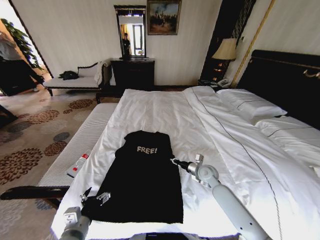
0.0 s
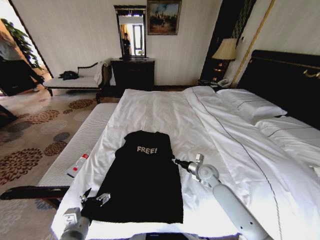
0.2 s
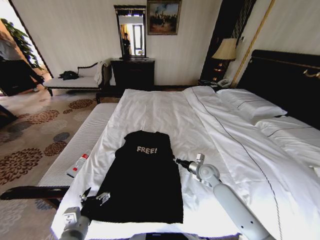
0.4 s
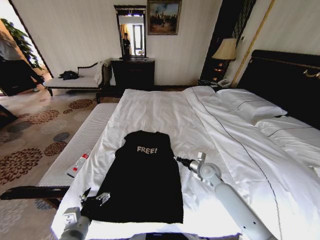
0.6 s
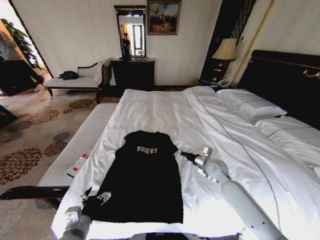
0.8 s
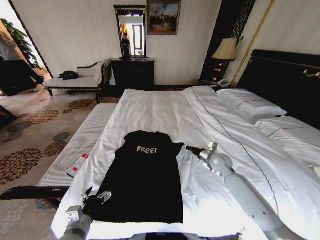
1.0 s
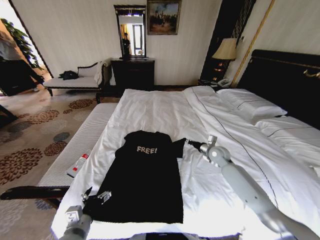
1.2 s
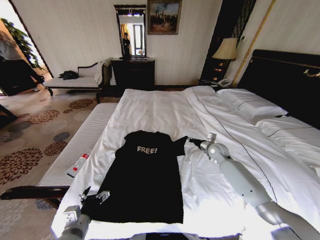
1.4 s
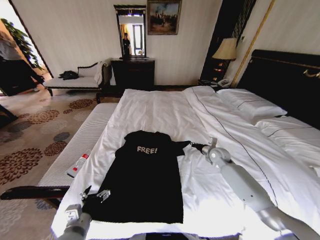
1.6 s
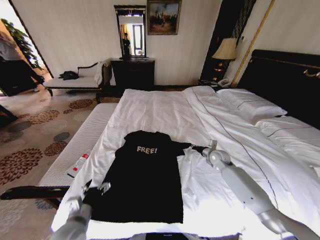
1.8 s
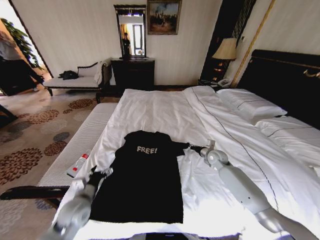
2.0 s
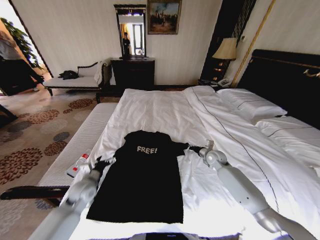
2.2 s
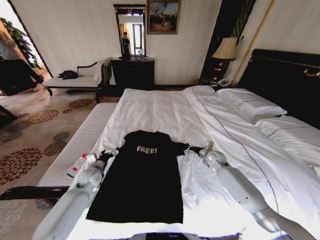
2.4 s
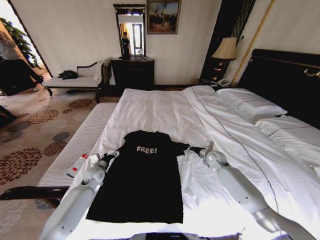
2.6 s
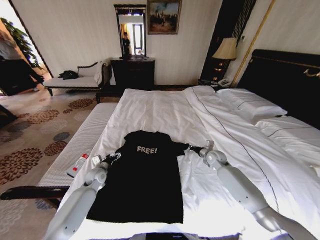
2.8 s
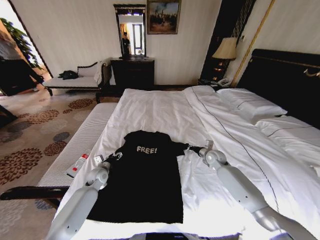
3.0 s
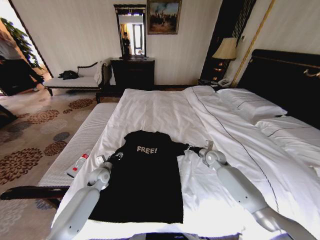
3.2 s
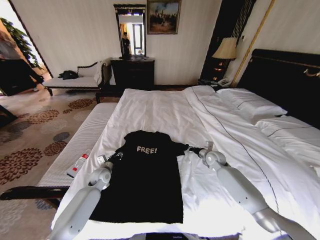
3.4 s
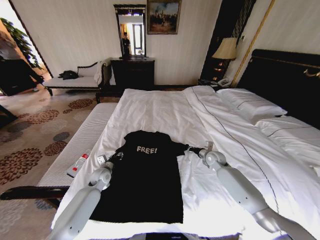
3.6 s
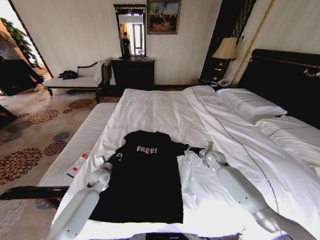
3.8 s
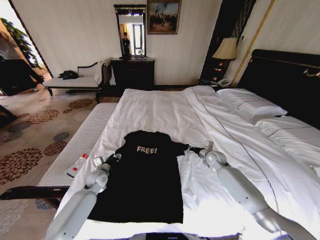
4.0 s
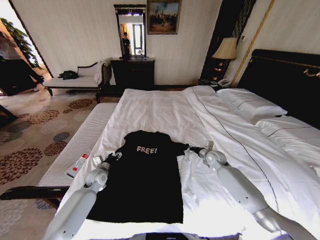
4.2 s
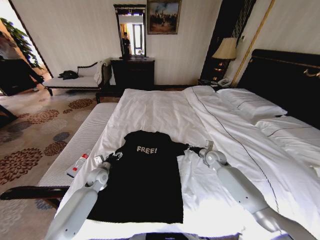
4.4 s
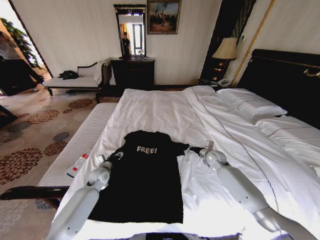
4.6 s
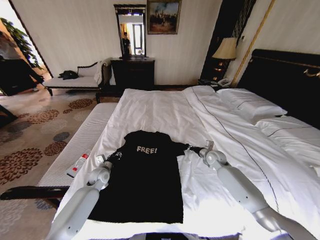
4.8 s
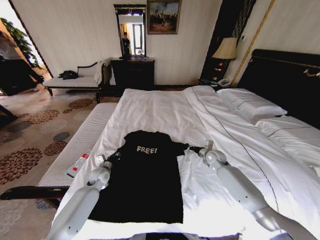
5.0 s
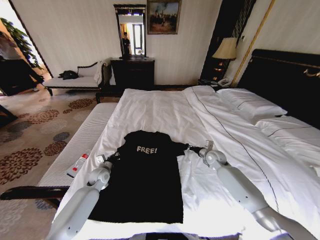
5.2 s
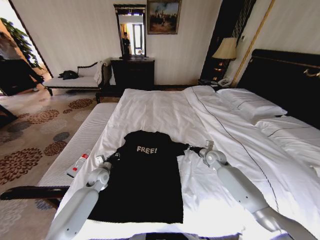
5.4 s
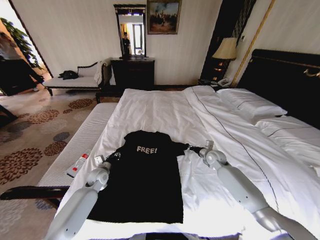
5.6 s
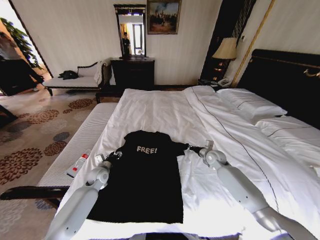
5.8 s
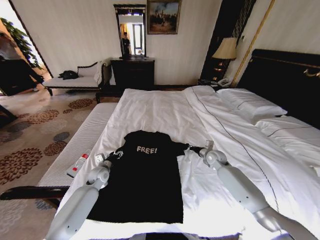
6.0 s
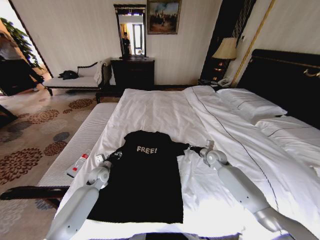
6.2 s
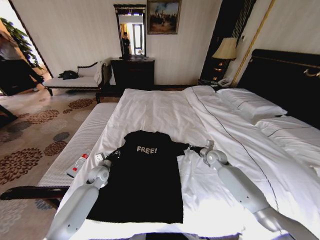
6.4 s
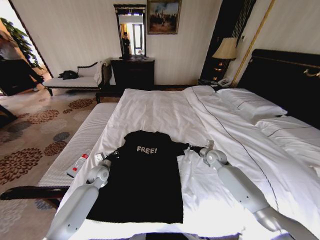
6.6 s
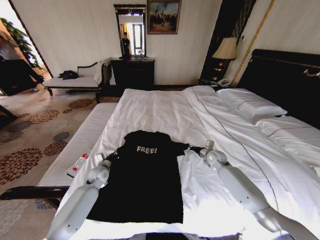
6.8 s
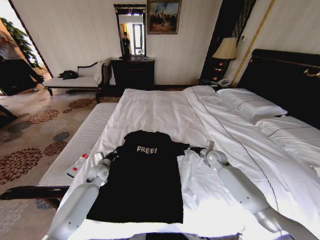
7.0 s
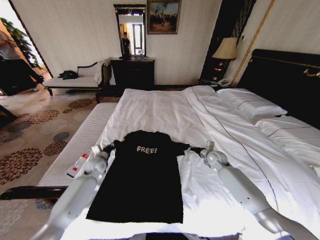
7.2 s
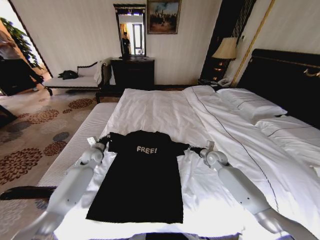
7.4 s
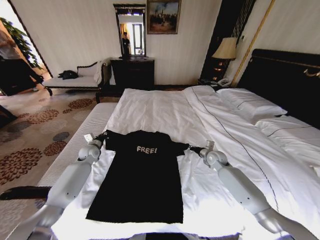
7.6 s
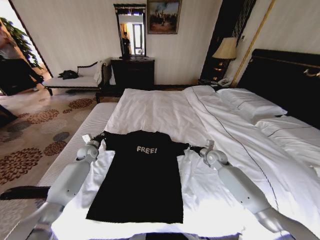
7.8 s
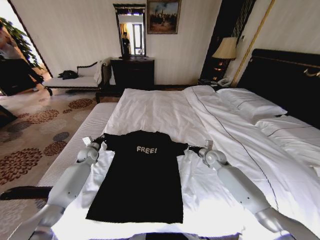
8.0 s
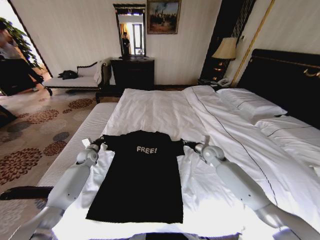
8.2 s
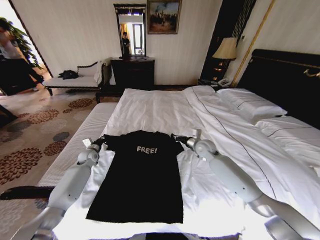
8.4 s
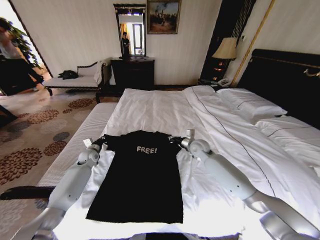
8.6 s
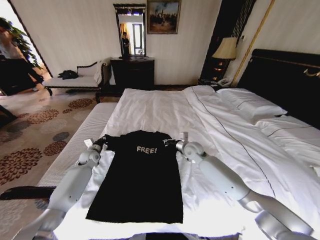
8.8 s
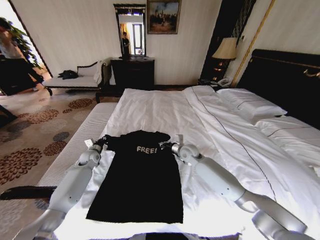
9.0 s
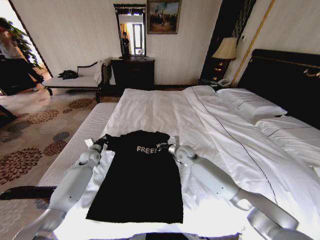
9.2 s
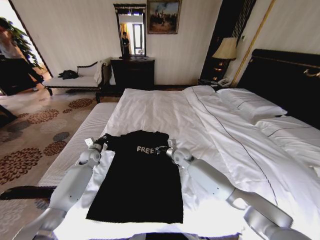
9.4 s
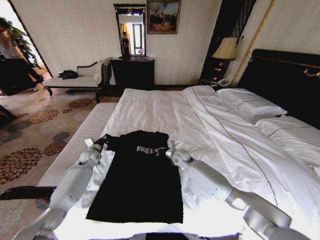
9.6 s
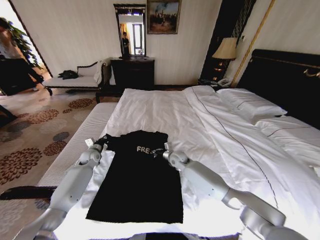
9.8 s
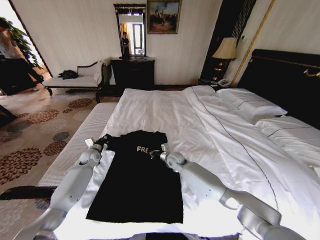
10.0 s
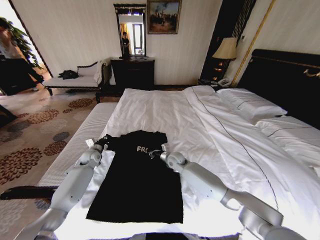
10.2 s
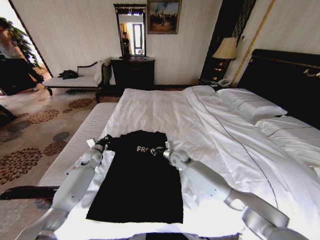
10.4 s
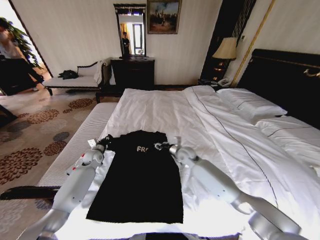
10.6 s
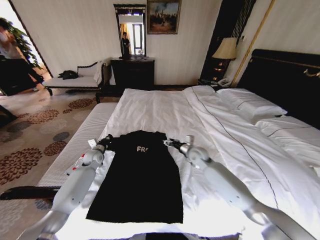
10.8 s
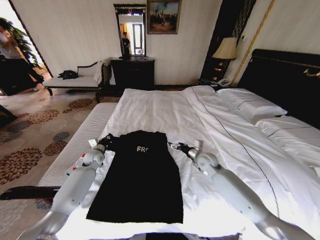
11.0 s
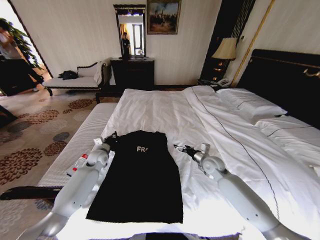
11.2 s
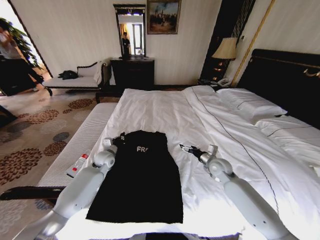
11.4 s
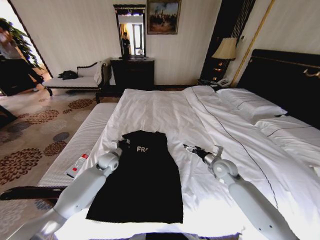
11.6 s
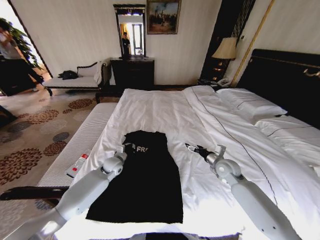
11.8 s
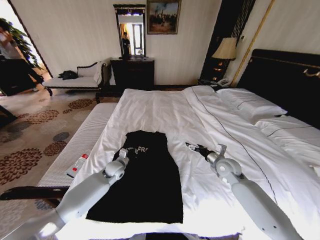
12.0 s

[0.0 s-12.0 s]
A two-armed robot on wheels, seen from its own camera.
Task of the whole recording: Fold the clothes on the bed.
0.0 to 1.6 s: The right gripper goes some 10 cm forward and to the right.
1.6 to 3.0 s: The left gripper moves forward, about 25 cm.
4.4 to 6.0 s: The left gripper closes, then opens again.
6.0 to 7.6 s: The left gripper goes some 15 cm forward, to the left and upward, and closes its fingers.
7.6 to 9.0 s: The right gripper goes roughly 15 cm to the left.
9.0 to 10.4 s: The right gripper shifts by some 5 cm.
10.4 to 12.0 s: Both grippers move to the right and backward, some 20 cm. The right gripper opens.

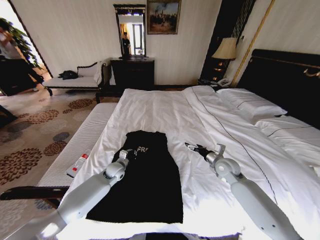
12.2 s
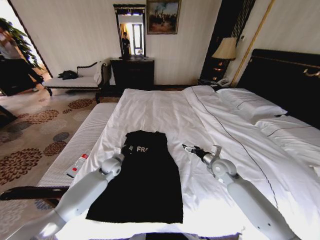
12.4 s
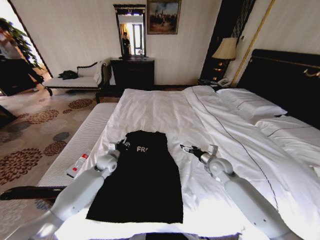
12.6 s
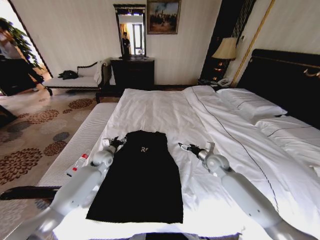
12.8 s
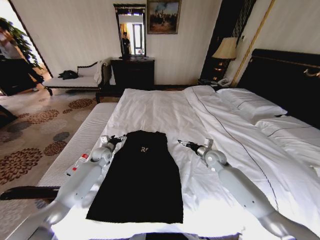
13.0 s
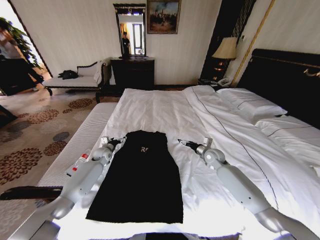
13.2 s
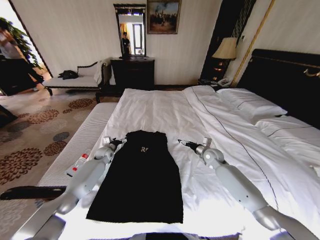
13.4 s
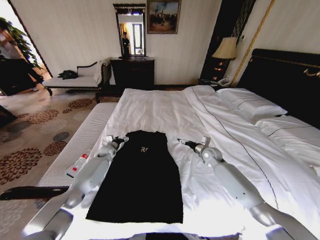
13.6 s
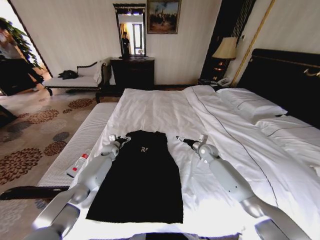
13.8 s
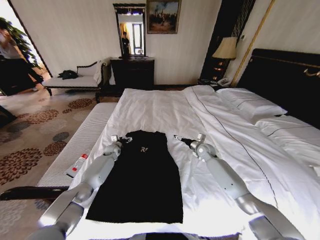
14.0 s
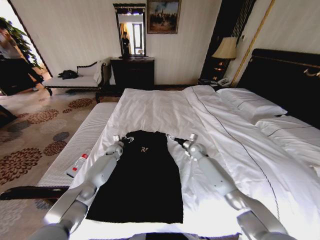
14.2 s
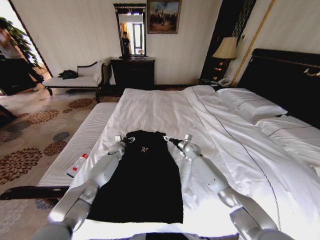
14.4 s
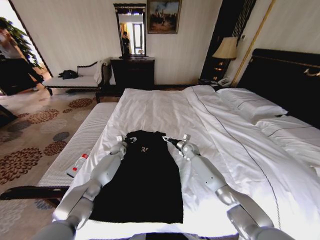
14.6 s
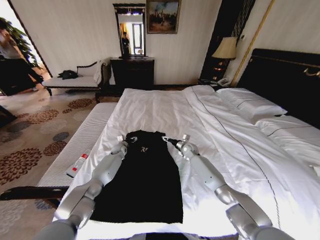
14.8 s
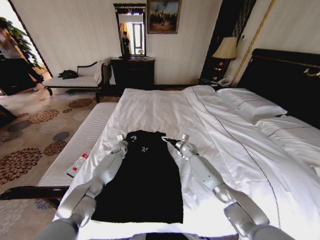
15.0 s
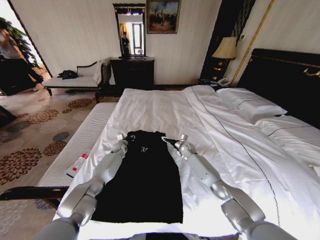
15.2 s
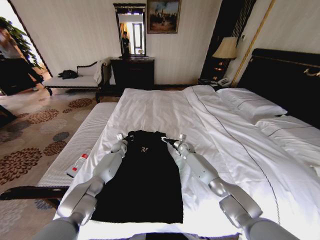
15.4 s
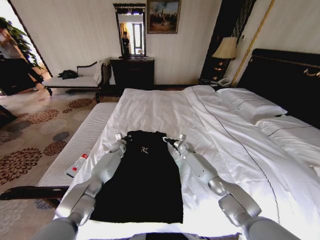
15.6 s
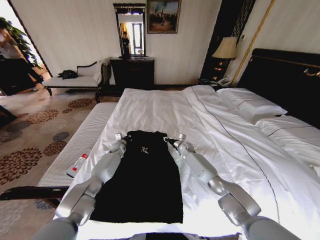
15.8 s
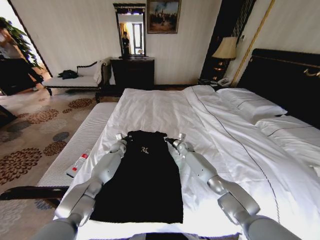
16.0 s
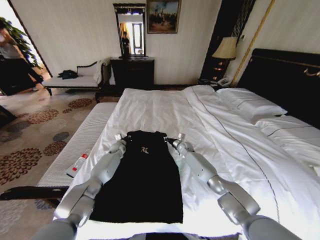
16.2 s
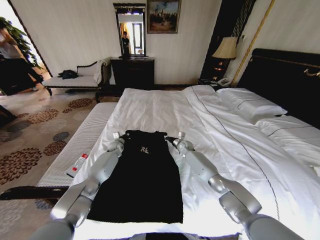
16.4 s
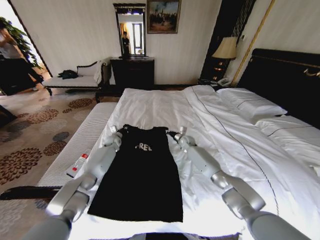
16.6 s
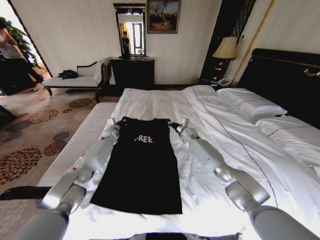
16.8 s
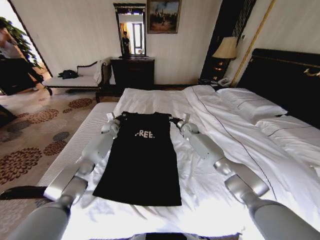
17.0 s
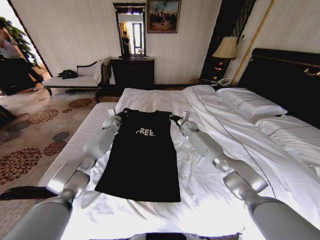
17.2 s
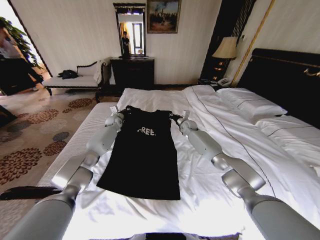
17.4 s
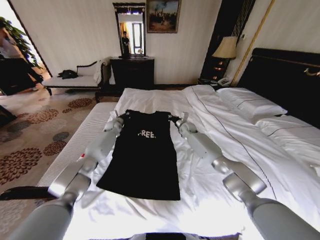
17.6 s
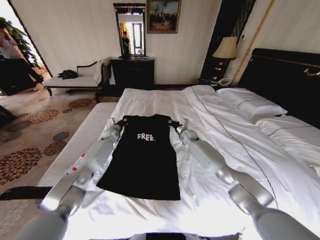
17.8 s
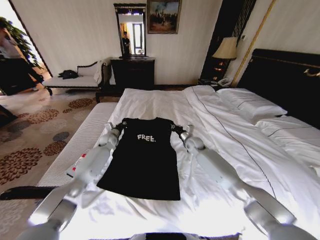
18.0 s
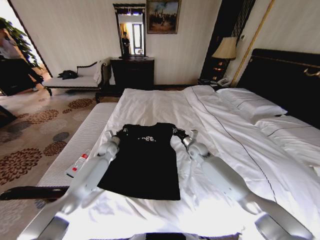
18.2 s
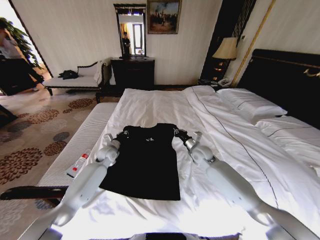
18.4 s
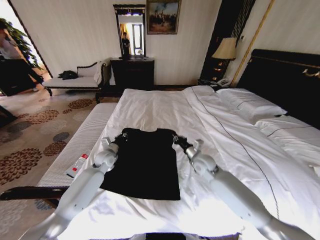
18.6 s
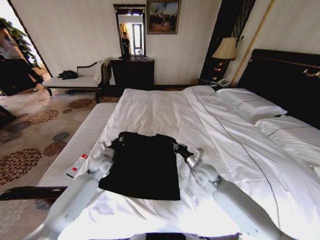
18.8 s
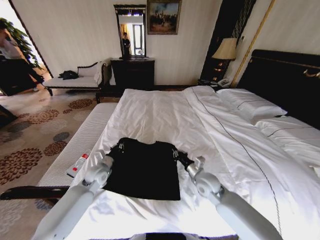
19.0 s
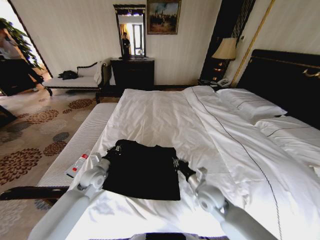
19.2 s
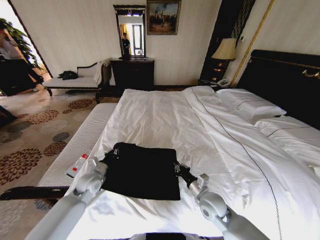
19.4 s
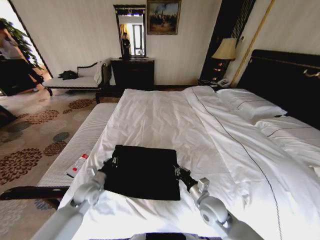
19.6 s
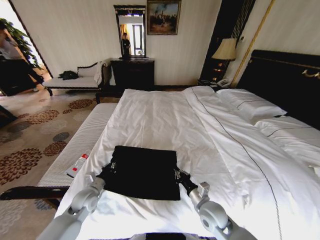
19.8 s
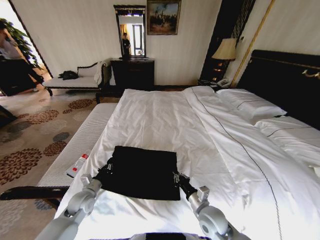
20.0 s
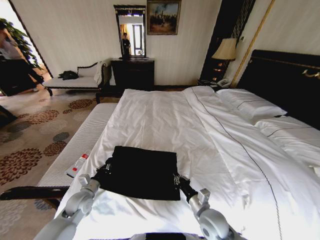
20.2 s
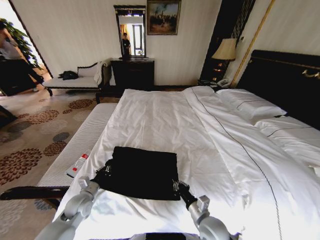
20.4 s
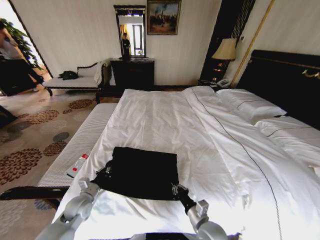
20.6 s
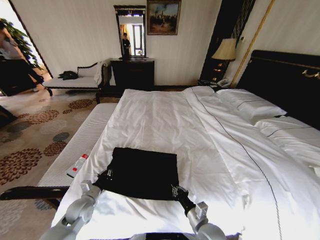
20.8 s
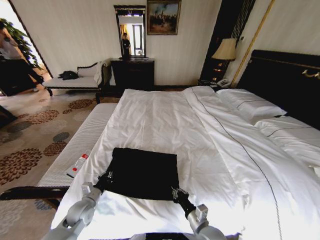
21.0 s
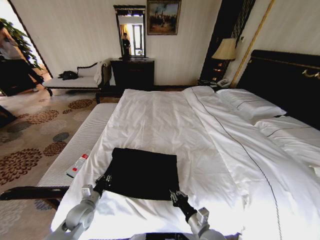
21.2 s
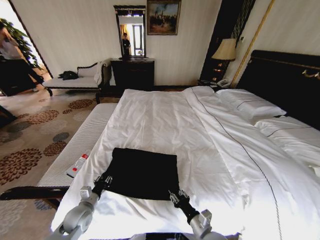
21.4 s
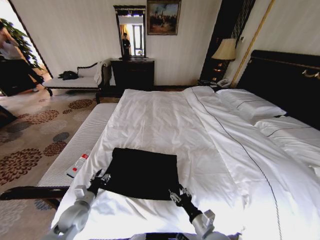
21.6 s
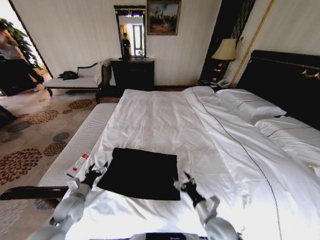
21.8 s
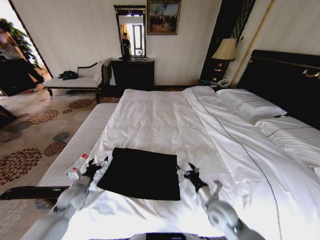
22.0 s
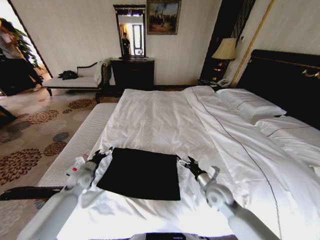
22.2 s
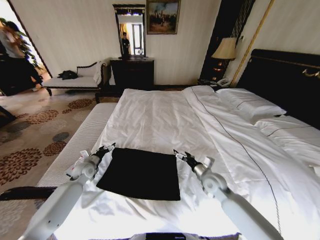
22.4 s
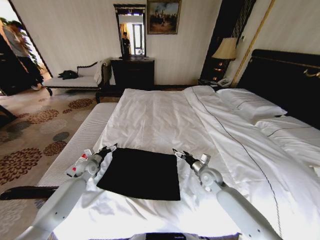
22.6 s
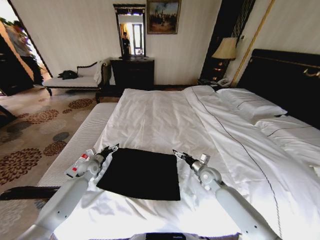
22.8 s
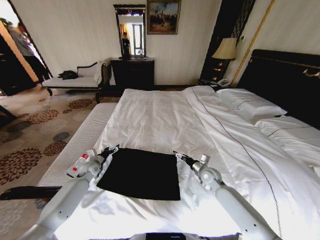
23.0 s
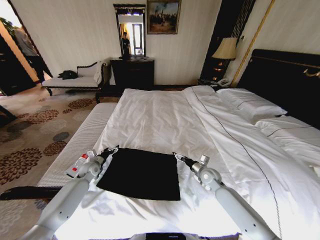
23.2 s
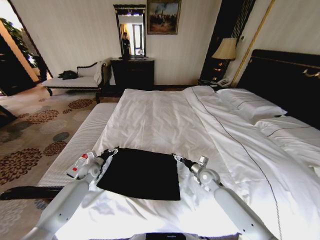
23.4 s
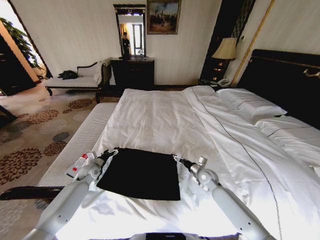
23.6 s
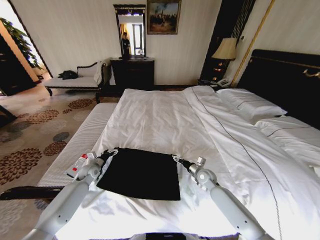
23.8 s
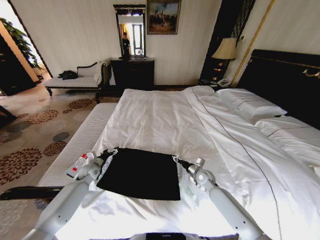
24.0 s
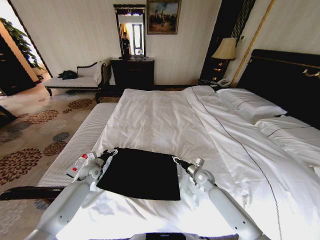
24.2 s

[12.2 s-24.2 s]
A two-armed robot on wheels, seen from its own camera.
Task of the whole recording: Fold the clothes on the bed.
12.2 to 13.8 s: The left gripper is displaced forward and to the left by roughly 15 cm, and opens, while the right gripper heads forward, covering roughly 10 cm.
13.8 to 15.2 s: The right gripper is displaced to the left, forward and downward by approximately 10 cm. Meanwhile the left gripper shifts by some 5 cm, and closes up.
15.2 to 16.6 s: The right gripper moves roughly 5 cm, and closes; the left gripper heads upward, covering approximately 5 cm, and closes up.
16.6 to 18.2 s: Both grippers travel together backward, approximately 10 cm.
18.2 to 19.8 s: The grippers both shift backward by some 25 cm.
19.8 to 21.2 s: The right gripper travels backward by roughly 10 cm.
21.2 to 22.6 s: The two grippers go about 20 cm forward. The left gripper opens up, while the right gripper opens up.
22.6 to 24.2 s: The right gripper goes roughly 5 cm downward, and closes up.
